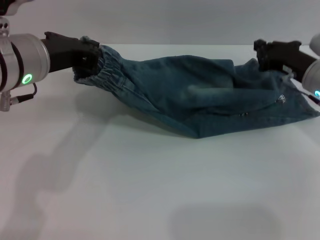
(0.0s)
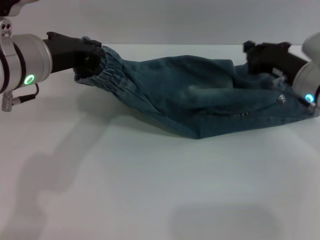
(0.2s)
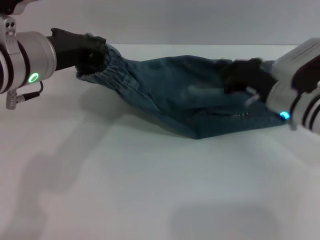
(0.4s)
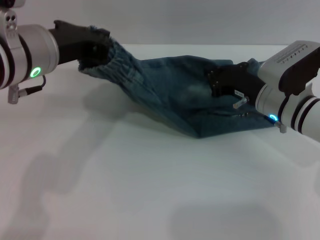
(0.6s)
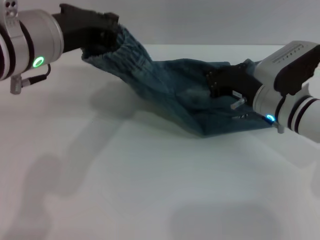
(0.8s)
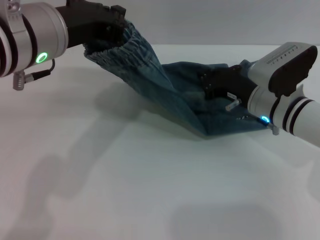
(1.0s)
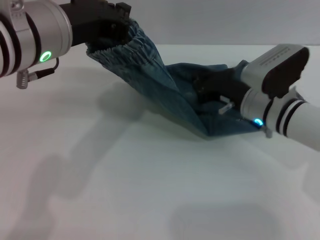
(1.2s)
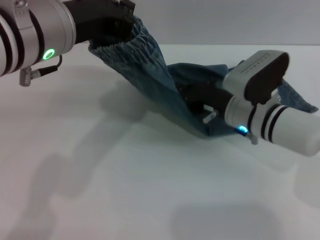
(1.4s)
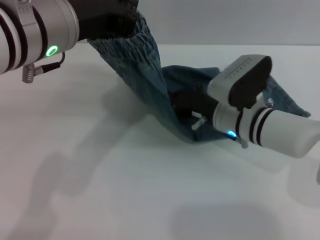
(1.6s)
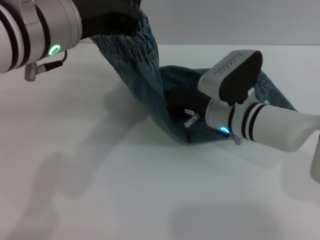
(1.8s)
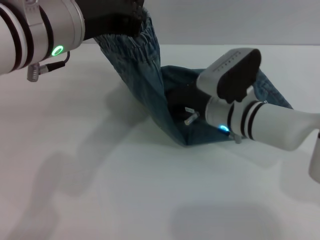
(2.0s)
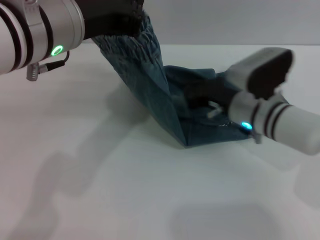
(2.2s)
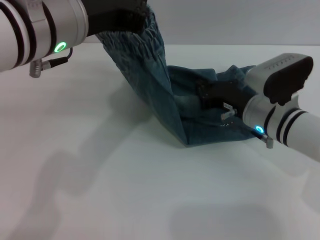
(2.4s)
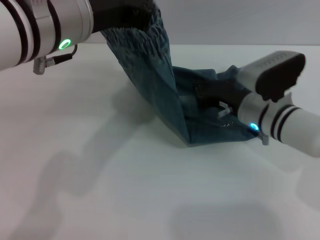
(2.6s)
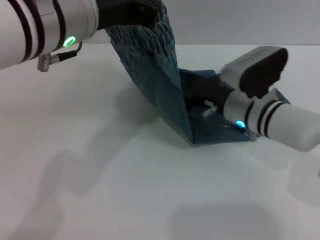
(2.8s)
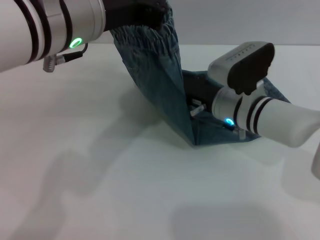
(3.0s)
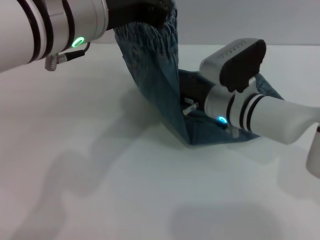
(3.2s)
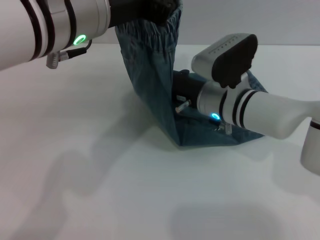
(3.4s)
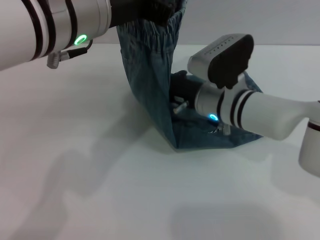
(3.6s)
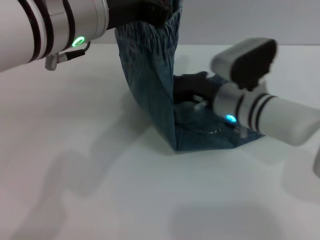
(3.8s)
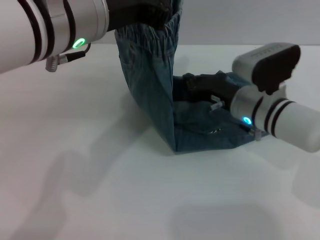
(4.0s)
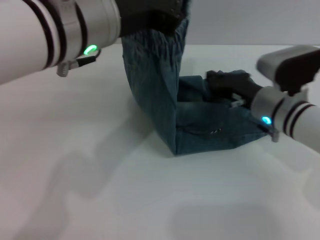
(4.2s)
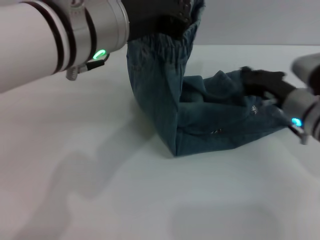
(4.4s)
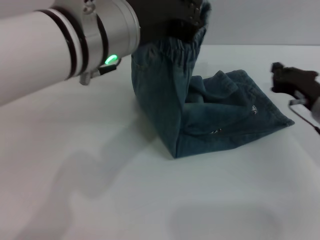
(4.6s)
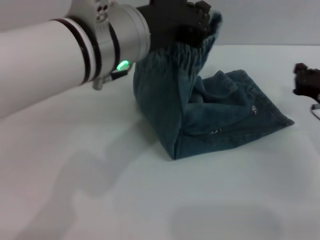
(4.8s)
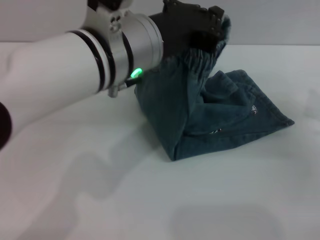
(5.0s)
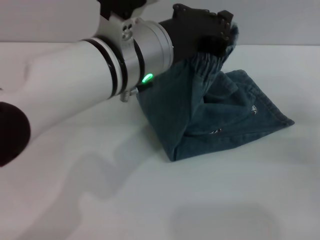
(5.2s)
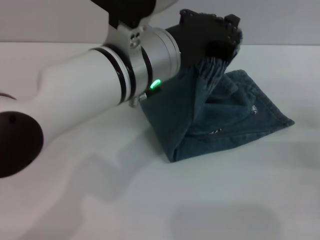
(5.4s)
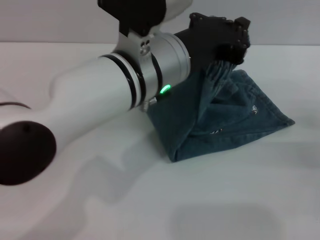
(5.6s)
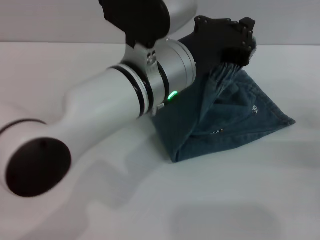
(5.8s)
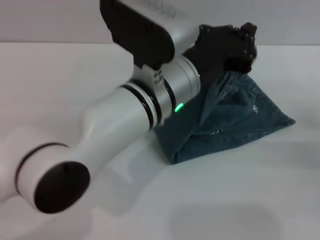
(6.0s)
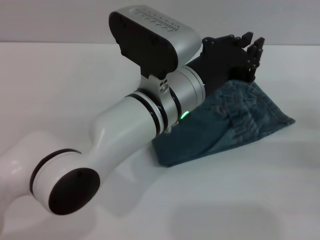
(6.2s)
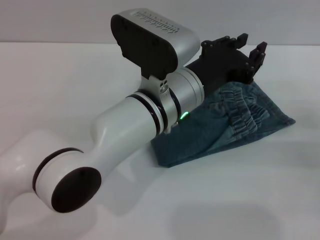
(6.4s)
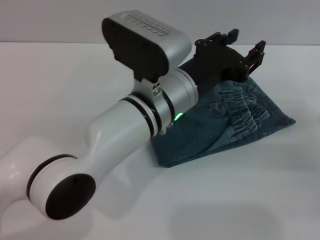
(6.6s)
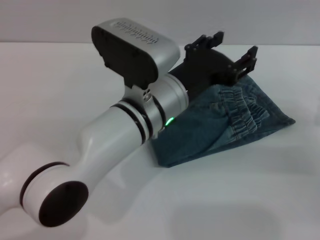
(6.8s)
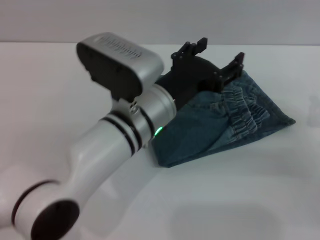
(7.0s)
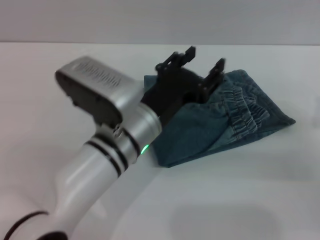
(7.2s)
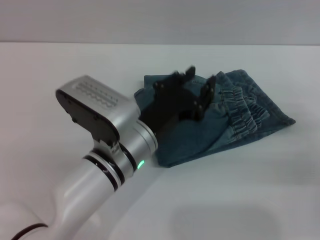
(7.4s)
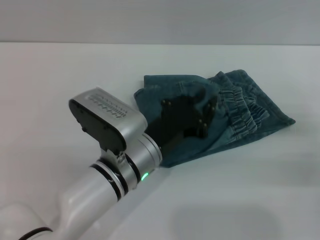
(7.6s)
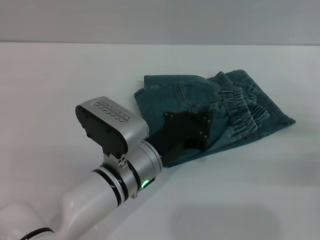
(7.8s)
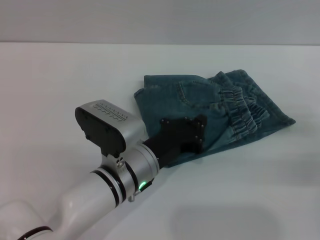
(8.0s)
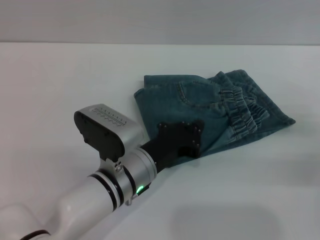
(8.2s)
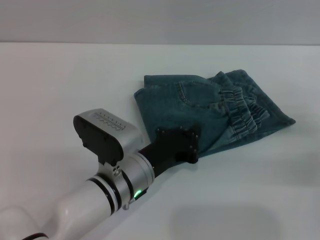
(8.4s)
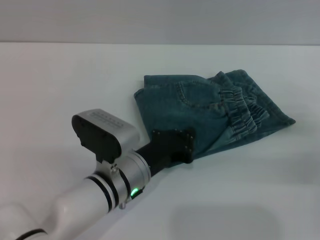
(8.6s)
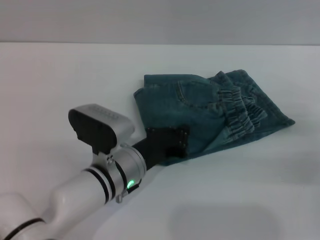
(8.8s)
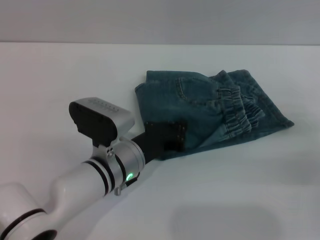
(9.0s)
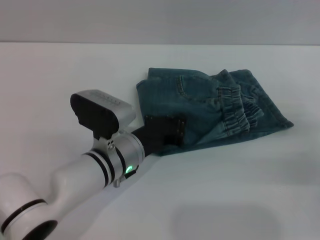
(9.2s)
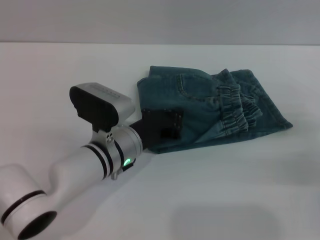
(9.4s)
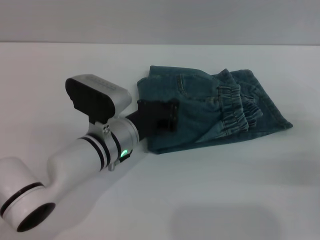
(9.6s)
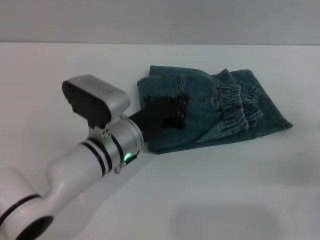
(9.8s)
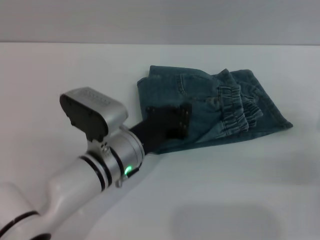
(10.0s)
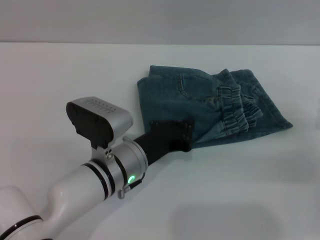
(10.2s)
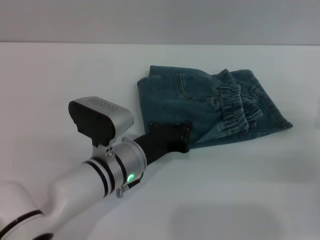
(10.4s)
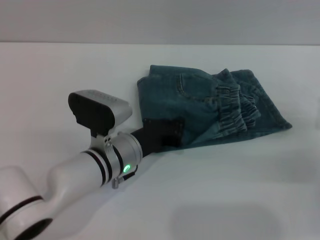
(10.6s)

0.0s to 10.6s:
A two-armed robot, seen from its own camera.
Step, 0.0s to 6.6s: Fold the pants from left to right with the left gripper.
0.0s to 1.6s: The left gripper shifts by about 5 cm. The right gripper heads to the left, covering about 15 cm.
3.0s to 4.6s: The right gripper travels to the right by some 15 cm.
4.6s to 6.0s: The left gripper shifts approximately 10 cm downward and to the right. Meanwhile the right gripper shifts some 10 cm to the right and backward.
6.0s to 7.6s: The left gripper is displaced downward by some 10 cm, and opens.
7.6s to 9.0s: The left gripper moves some 5 cm, and closes its fingers.
9.0s to 10.6s: The grippers move only a little.

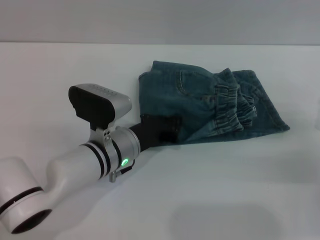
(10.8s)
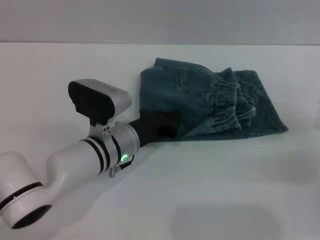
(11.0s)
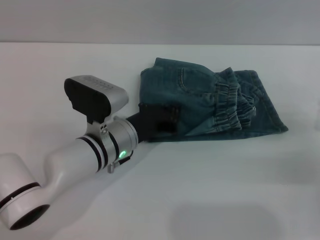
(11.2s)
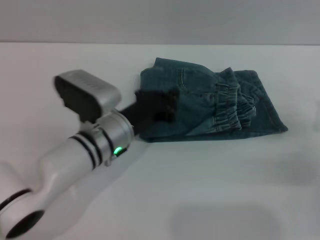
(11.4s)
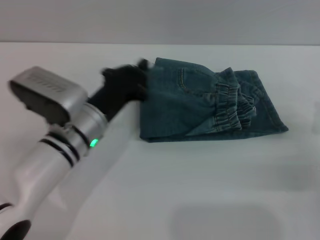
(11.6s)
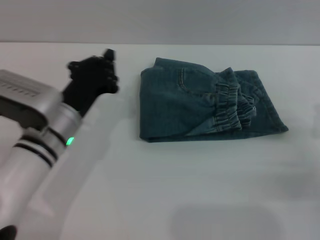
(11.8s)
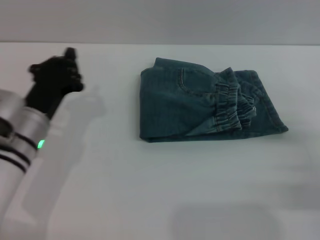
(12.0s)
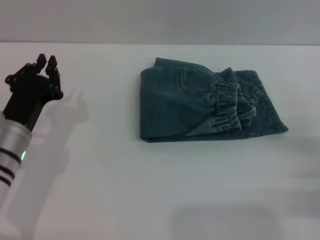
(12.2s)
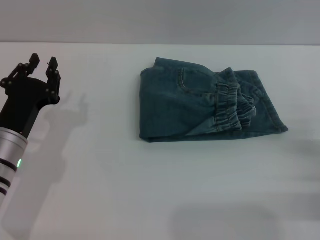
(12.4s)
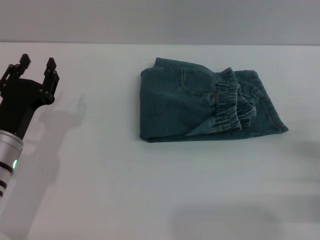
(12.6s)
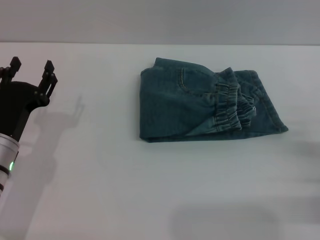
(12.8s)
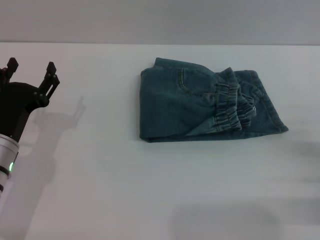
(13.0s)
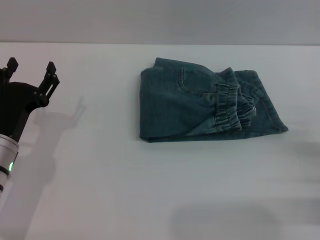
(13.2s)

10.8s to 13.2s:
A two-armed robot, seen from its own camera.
10.8s to 12.0s: The left gripper heads to the left, covering roughly 10 cm.
12.0s to 13.2s: The left gripper changes place by about 5 cm, and opens its fingers.

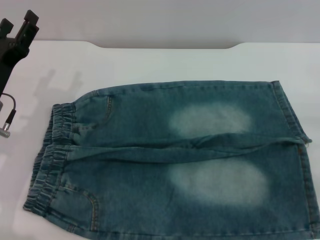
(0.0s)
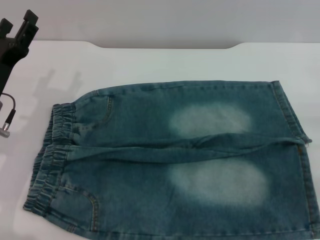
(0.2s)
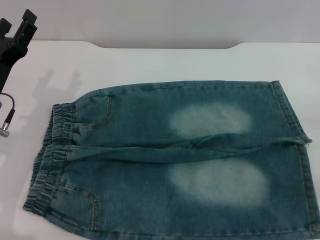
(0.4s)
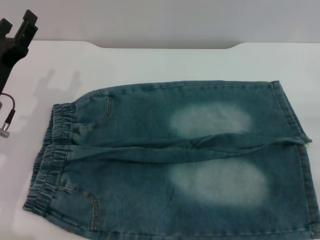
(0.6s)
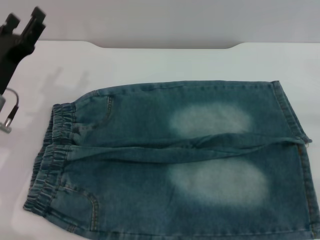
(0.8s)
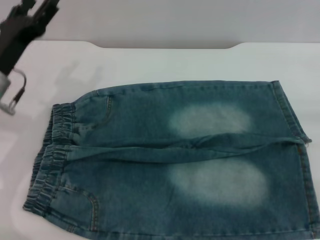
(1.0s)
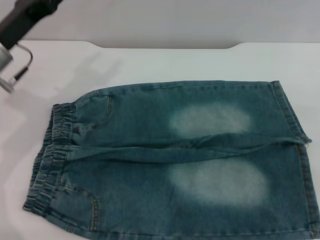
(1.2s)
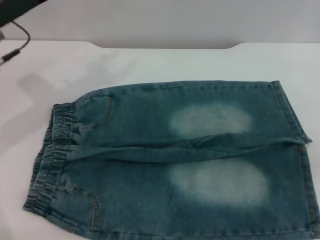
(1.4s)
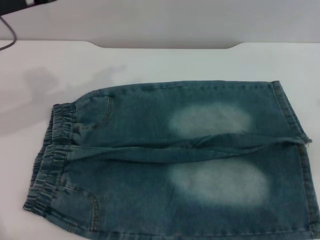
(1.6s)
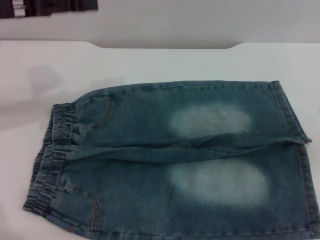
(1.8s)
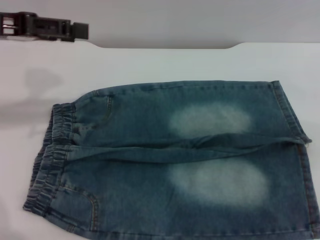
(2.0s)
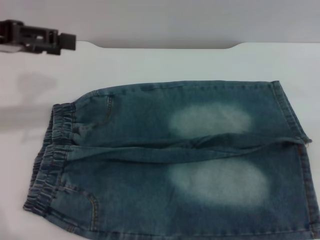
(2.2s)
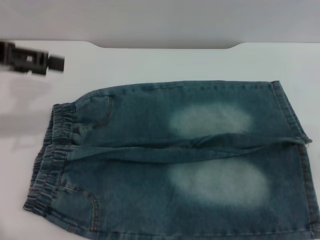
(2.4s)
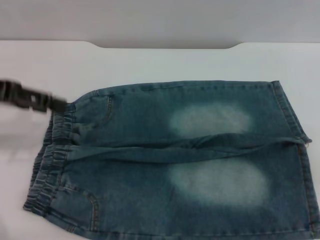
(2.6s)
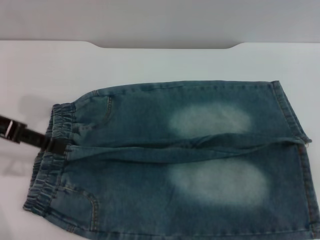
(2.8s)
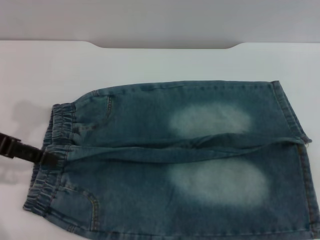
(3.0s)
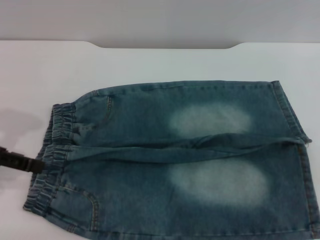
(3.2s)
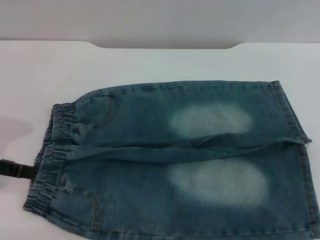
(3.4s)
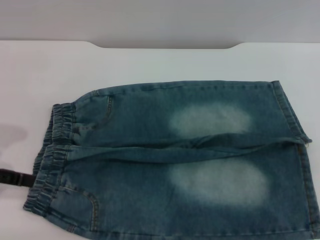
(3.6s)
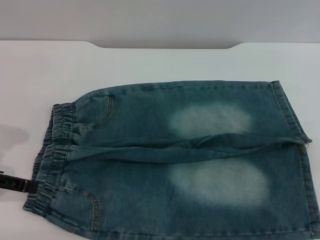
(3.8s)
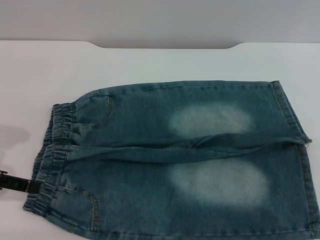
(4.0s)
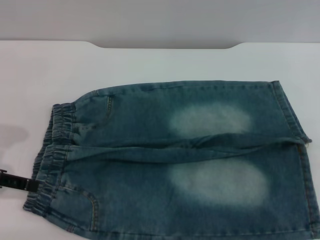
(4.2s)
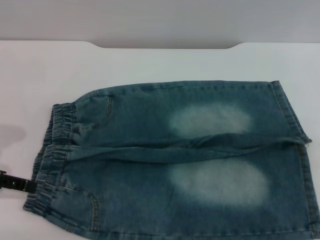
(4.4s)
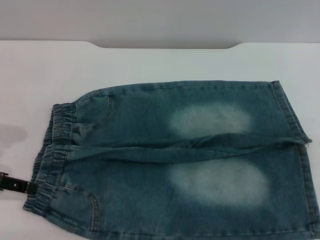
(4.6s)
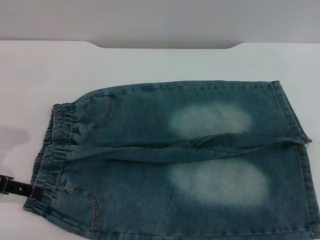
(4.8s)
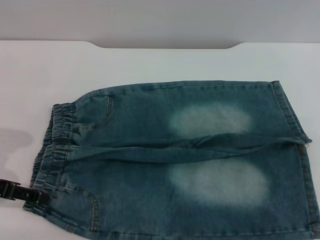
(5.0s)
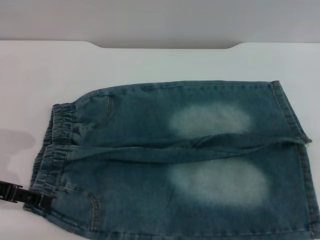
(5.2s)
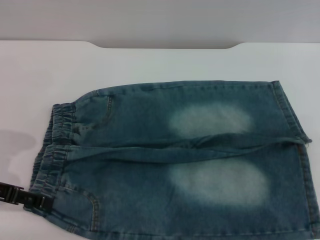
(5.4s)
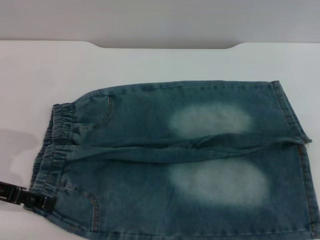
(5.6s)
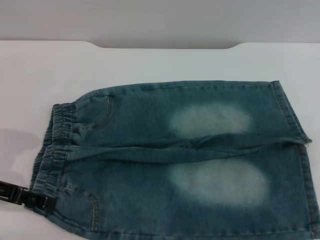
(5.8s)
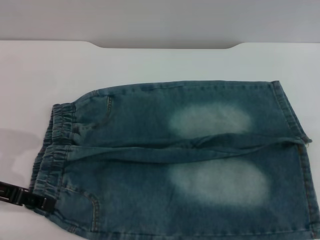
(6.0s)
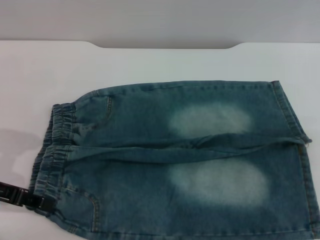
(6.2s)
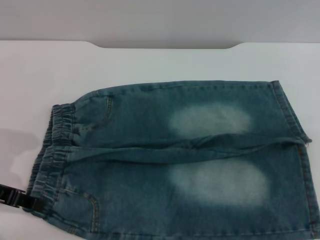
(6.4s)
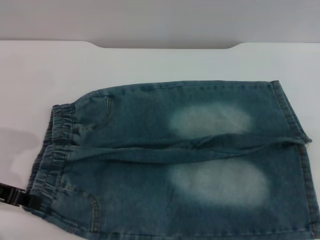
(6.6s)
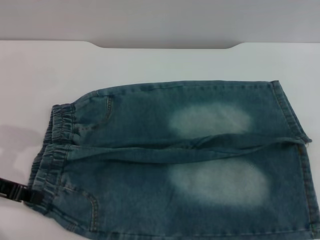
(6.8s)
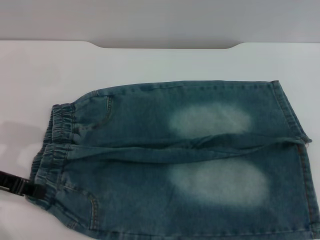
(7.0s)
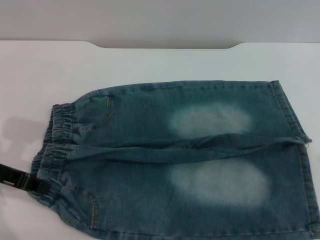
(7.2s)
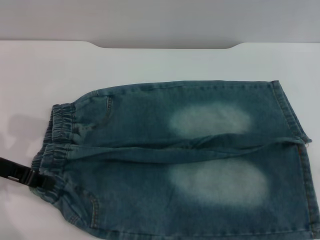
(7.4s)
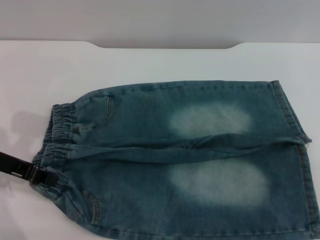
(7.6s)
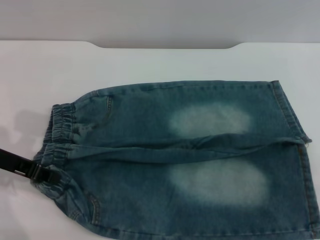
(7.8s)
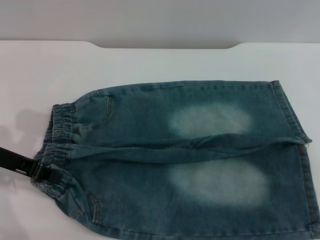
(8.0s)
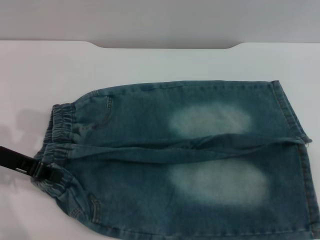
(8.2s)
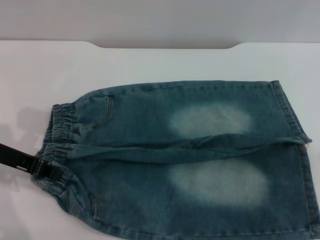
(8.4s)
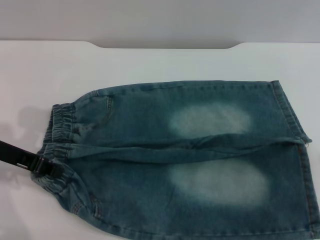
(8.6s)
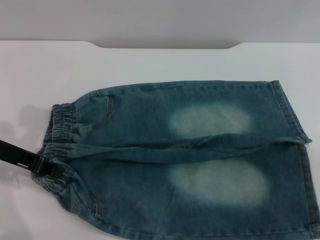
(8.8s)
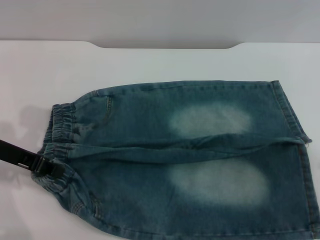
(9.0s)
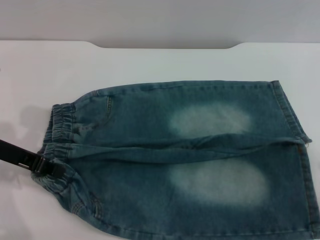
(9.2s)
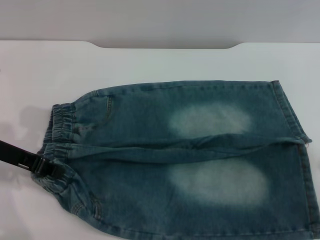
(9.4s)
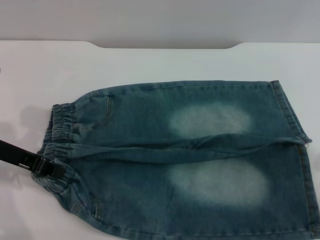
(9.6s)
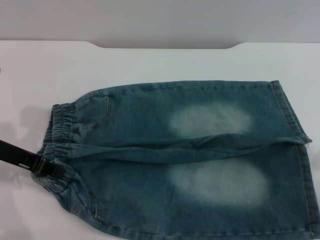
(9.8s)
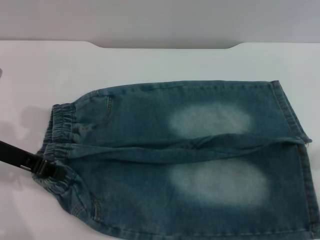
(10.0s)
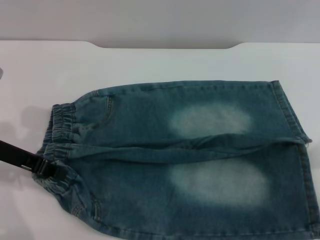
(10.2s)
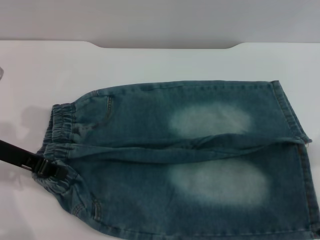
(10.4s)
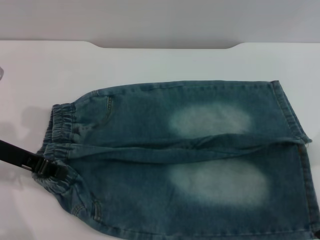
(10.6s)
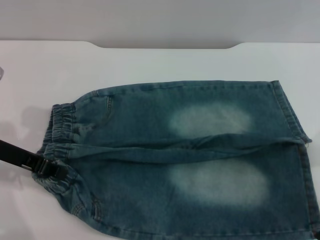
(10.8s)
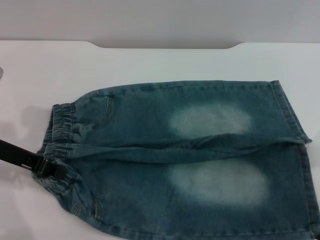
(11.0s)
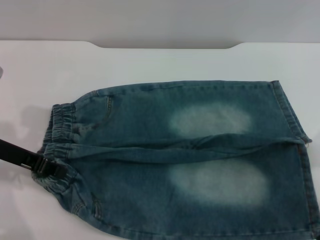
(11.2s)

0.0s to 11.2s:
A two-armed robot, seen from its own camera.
0.0s to 1.6s: The left gripper goes roughly 15 cm upward.
1.6s to 3.2s: The left gripper moves backward, about 10 cm.
3.2s to 4.8s: The left gripper moves downward, roughly 5 cm.
4.8s to 6.4s: The grippers stay close to where they were, moving slightly.
6.4s to 8.0s: The left gripper closes its fingers.
